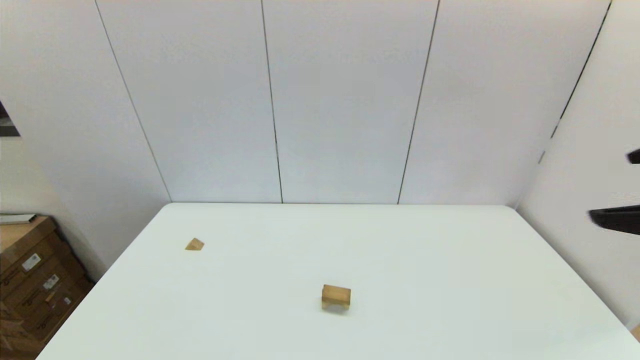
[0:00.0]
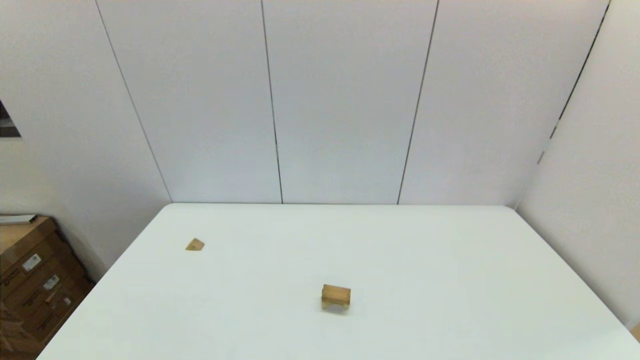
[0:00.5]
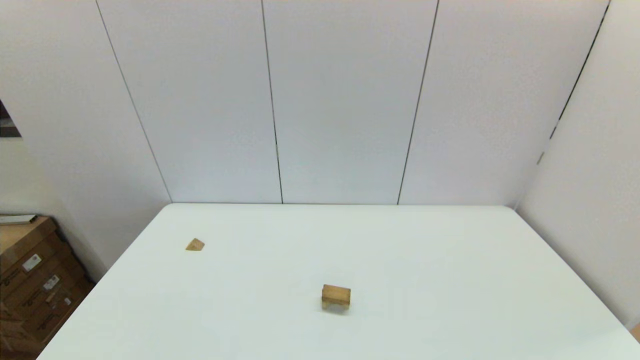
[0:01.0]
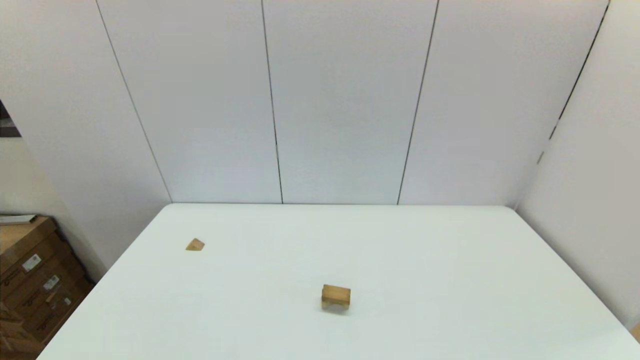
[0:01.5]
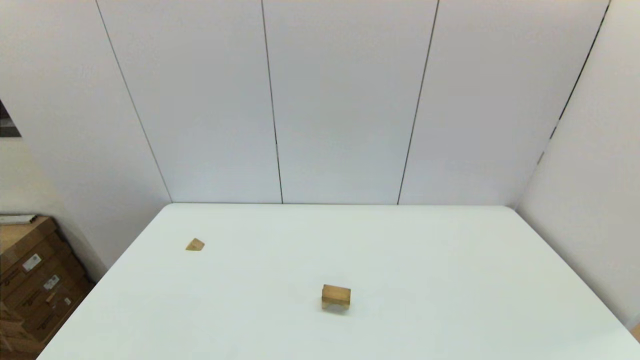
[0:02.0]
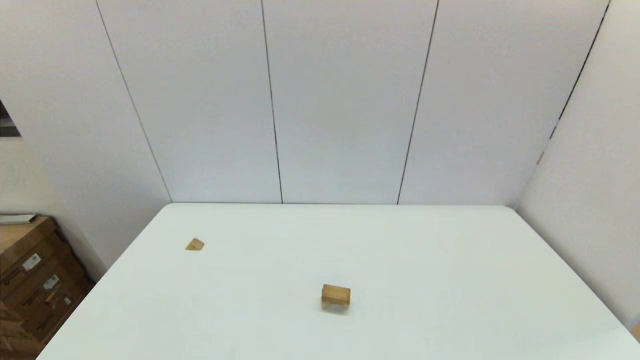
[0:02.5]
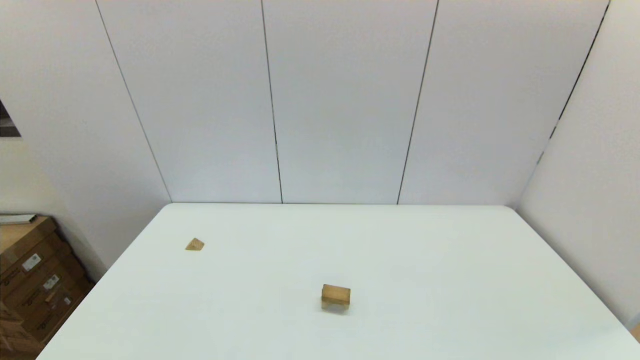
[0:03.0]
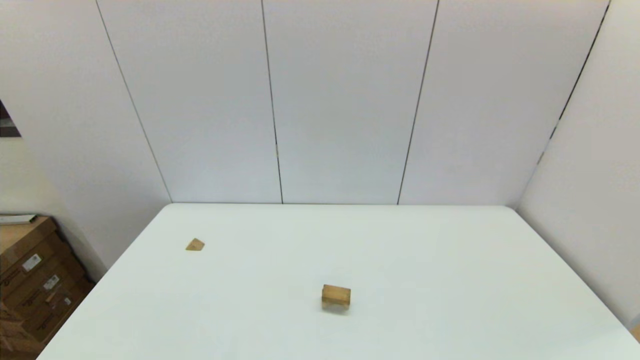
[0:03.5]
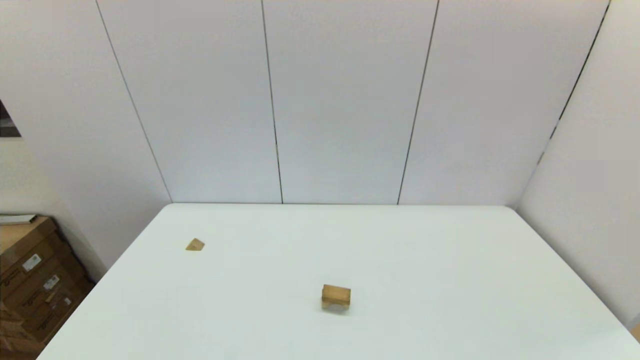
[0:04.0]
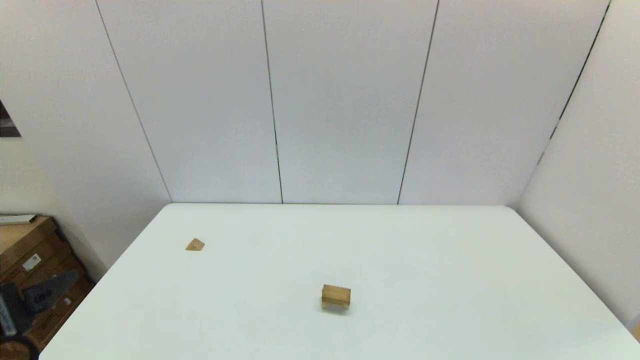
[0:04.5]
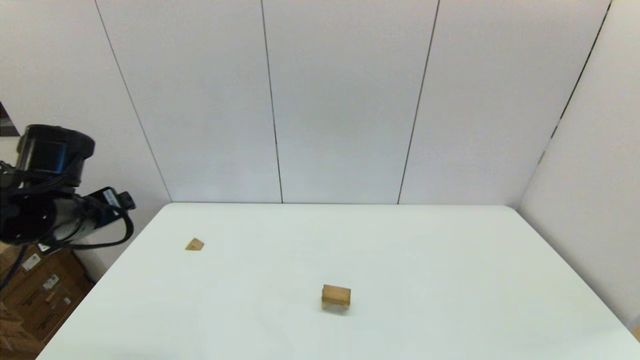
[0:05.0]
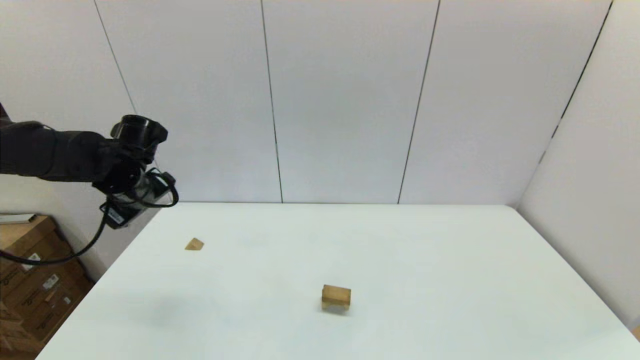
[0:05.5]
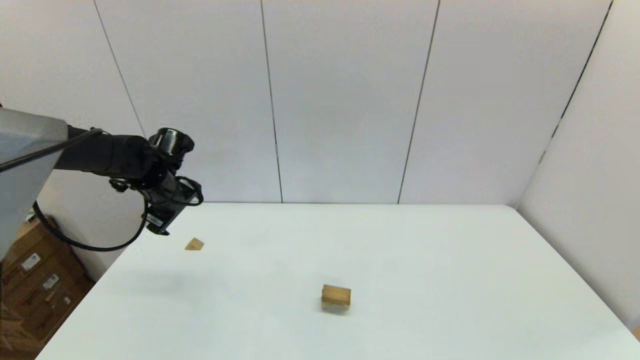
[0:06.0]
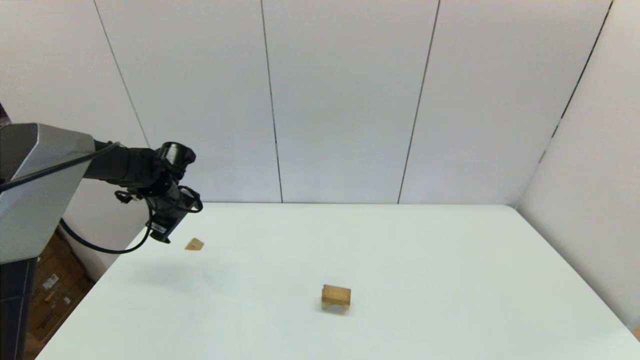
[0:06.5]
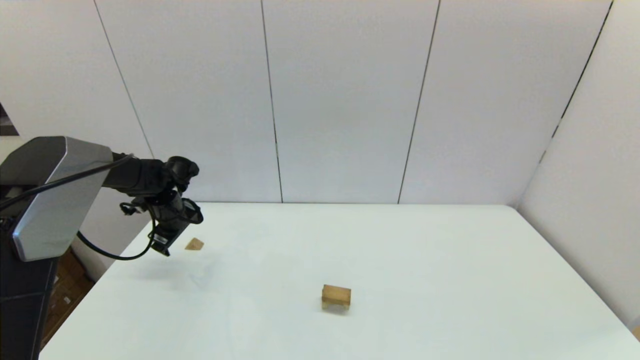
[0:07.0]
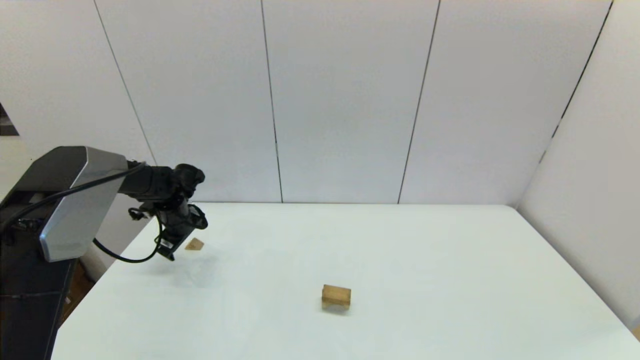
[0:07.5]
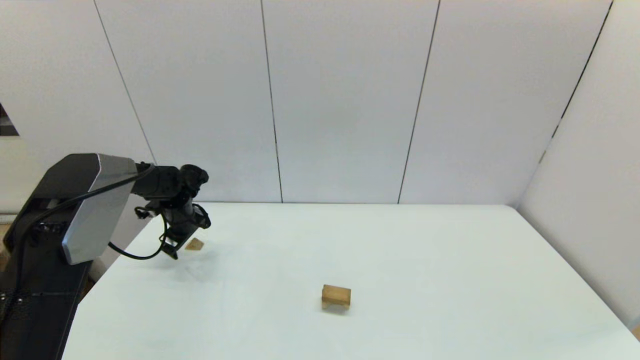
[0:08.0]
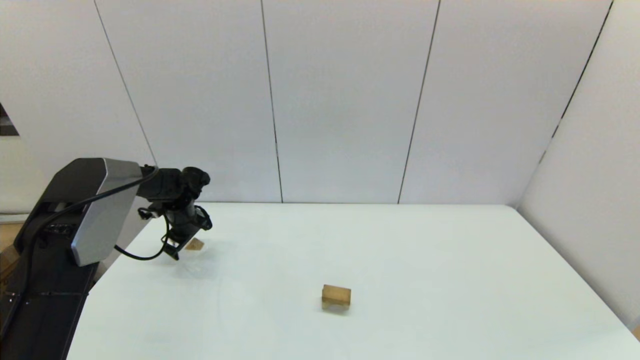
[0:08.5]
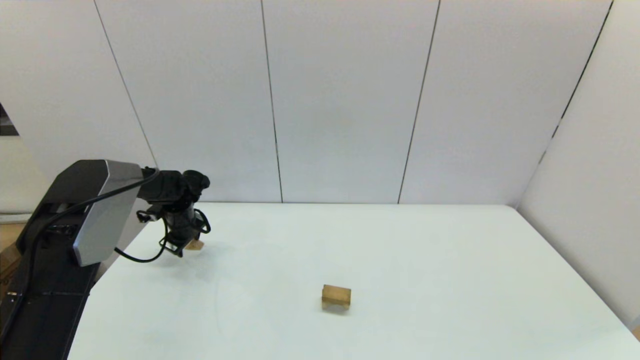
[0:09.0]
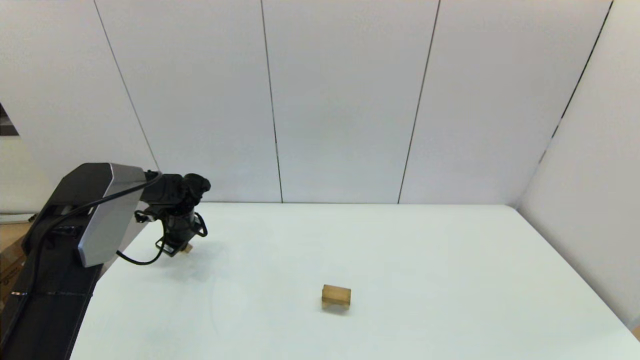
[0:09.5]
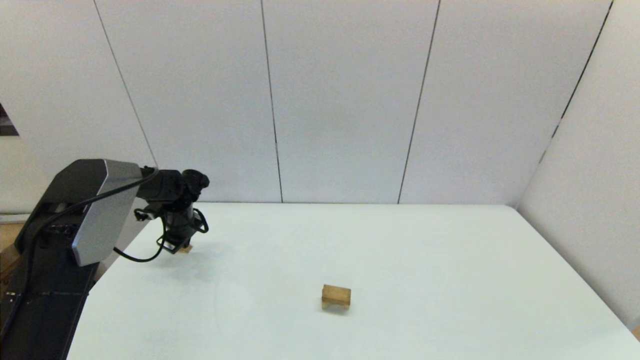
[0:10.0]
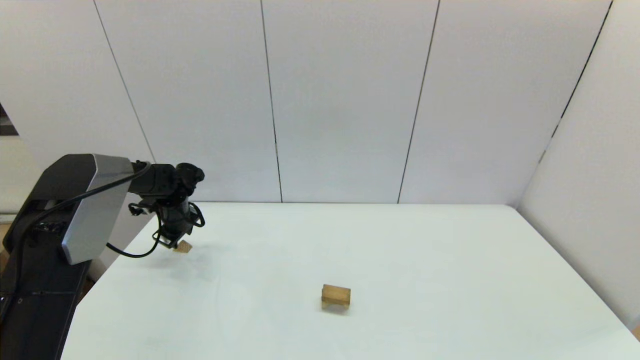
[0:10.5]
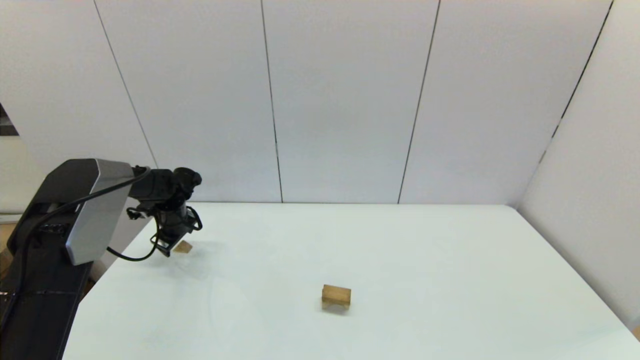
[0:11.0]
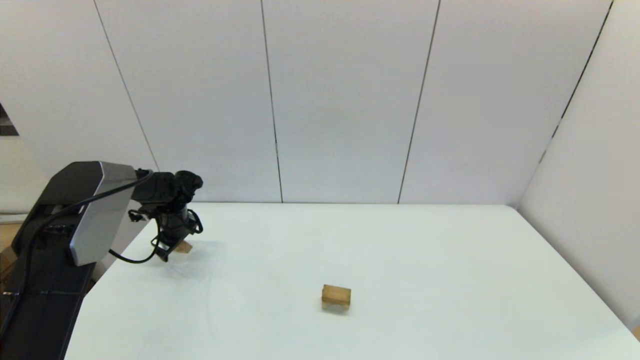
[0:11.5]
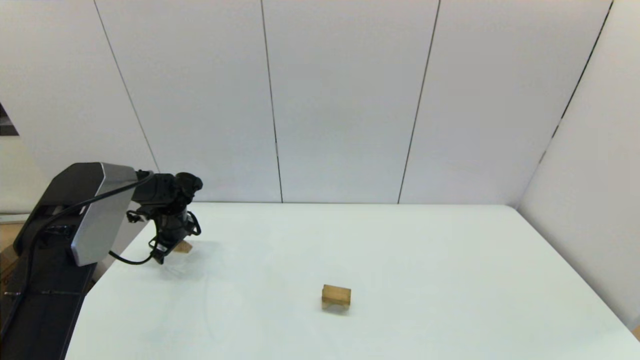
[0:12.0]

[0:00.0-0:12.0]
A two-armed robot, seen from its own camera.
Task of the whole recording: place the arched building blocks in the center of the table, set up the rectangular building blocks, and then set up the triangular building blocks.
0:00.0 to 0:02.0: The right gripper heads downward and backward, covering approximately 30 cm.
0:04.0 to 0:06.0: The left gripper travels forward by approximately 40 cm.
0:06.0 to 0:08.0: The left gripper heads downward and forward, covering roughly 10 cm.
0:08.0 to 0:10.0: The left gripper closes up.
0:10.0 to 0:12.0: The left gripper opens.

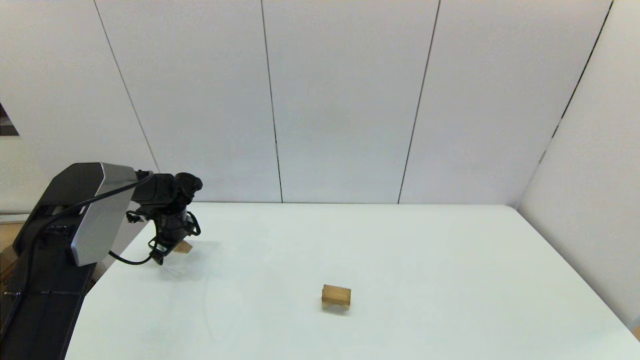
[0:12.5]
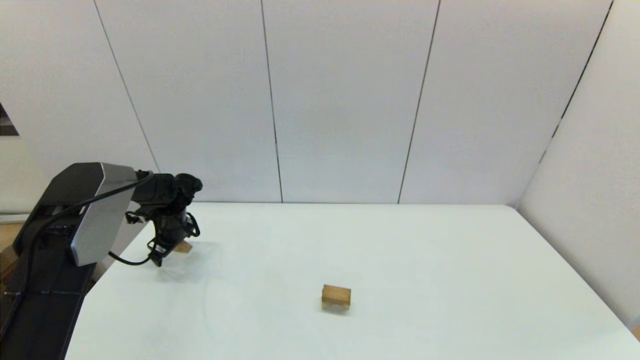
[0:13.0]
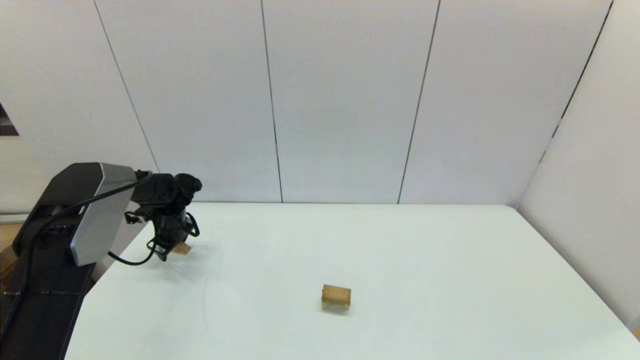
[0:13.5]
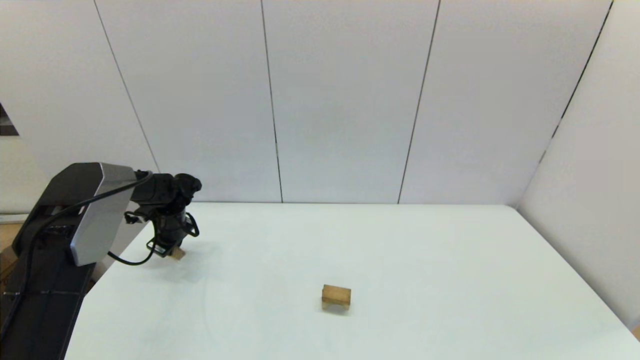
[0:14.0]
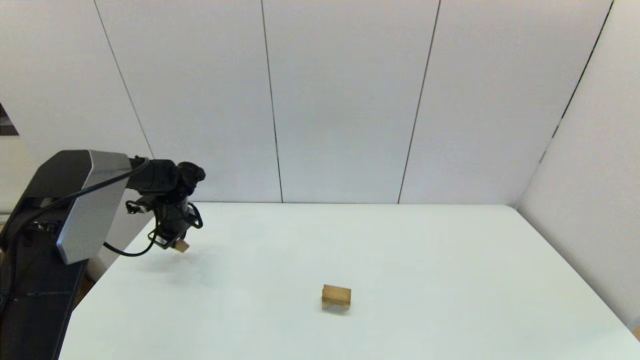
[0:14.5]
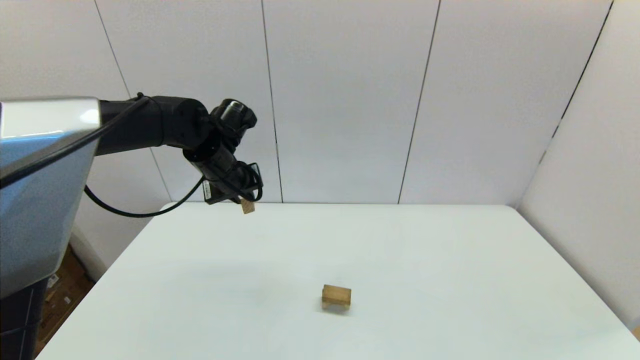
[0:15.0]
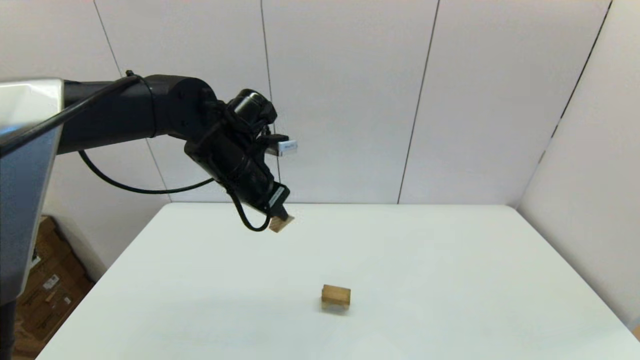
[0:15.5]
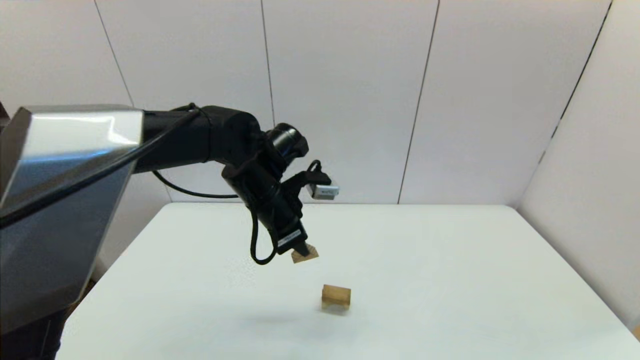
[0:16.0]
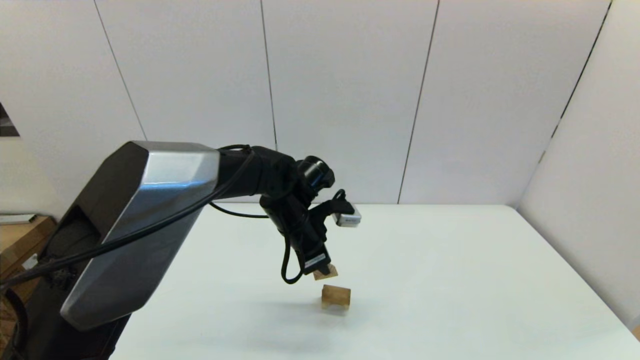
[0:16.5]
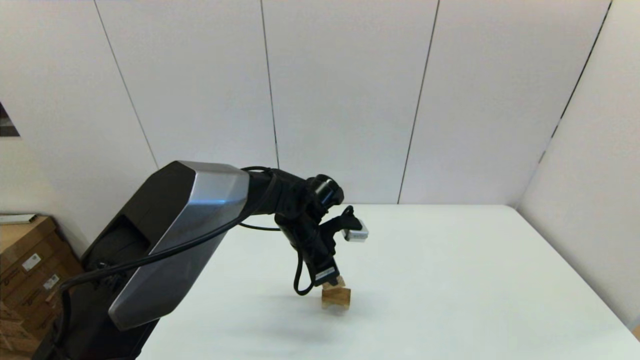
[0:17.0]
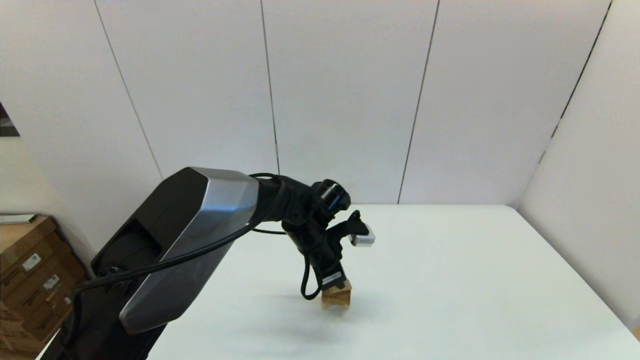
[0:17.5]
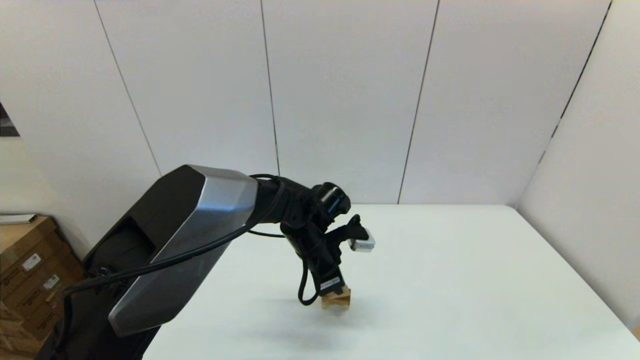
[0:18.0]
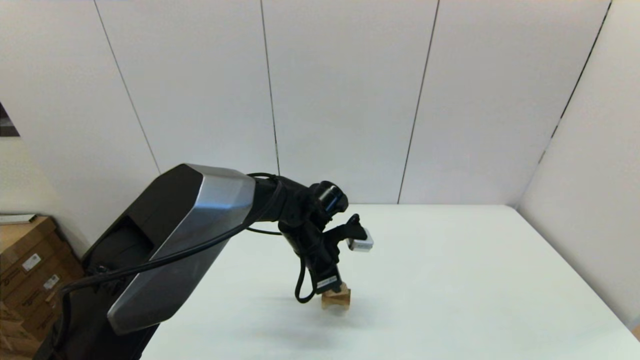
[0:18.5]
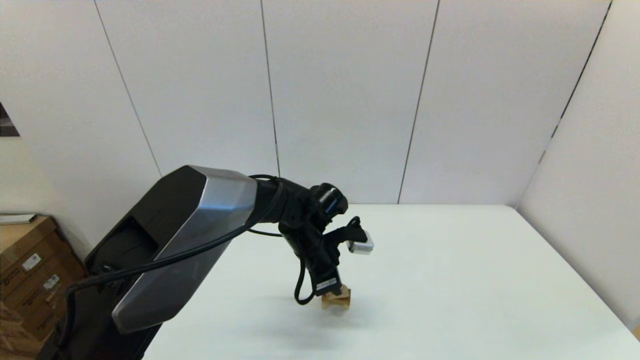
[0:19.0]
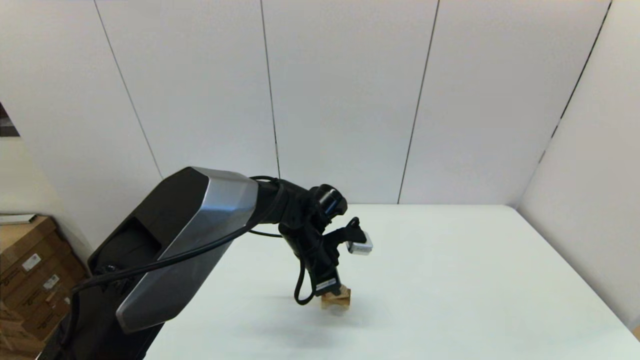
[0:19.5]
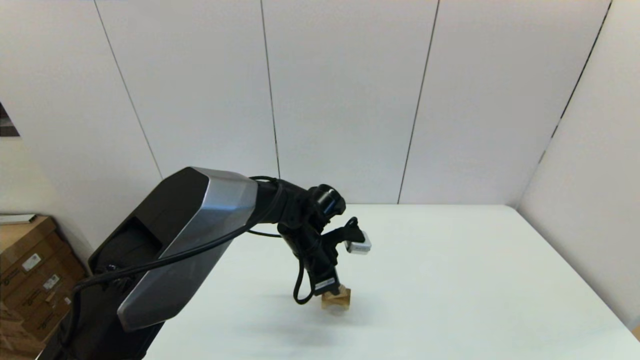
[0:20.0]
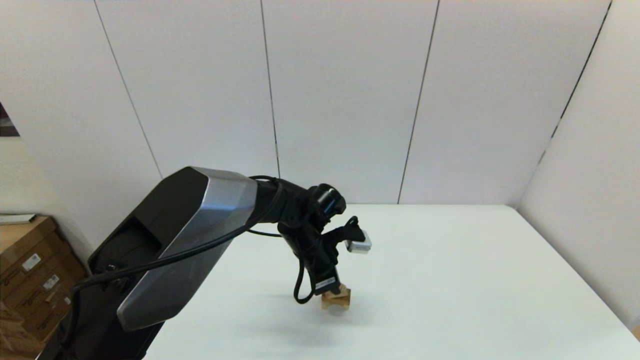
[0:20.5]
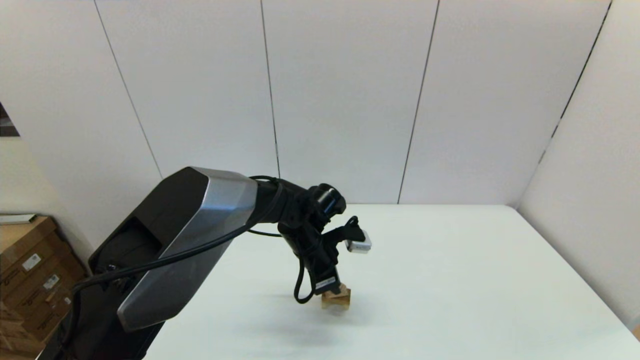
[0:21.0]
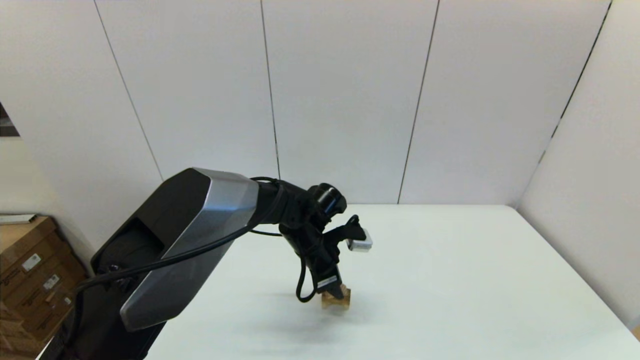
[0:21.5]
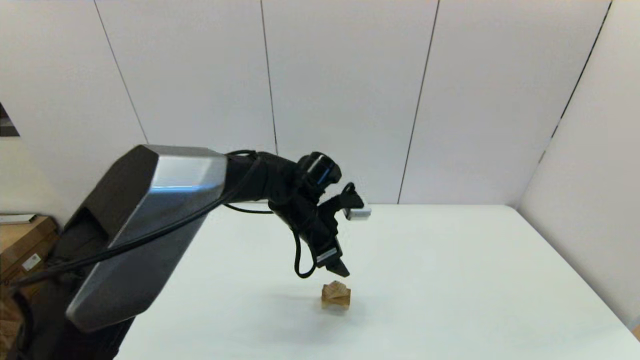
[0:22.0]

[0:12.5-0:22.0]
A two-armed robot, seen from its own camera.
Task of the whole recording: place the arched building blocks in the center of the table, set up the rectangular building blocks, and then set up the triangular building blocks.
0:12.5 to 0:14.5: The left gripper moves roughly 5 cm, and closes.
0:14.5 to 0:16.5: The left gripper heads to the right and backward, covering approximately 30 cm.
0:16.5 to 0:18.0: The left gripper shifts by roughly 5 cm.
0:18.0 to 0:20.0: Neither gripper changes place.
0:20.0 to 0:22.0: The left gripper travels upward by approximately 5 cm, and opens its fingers.
